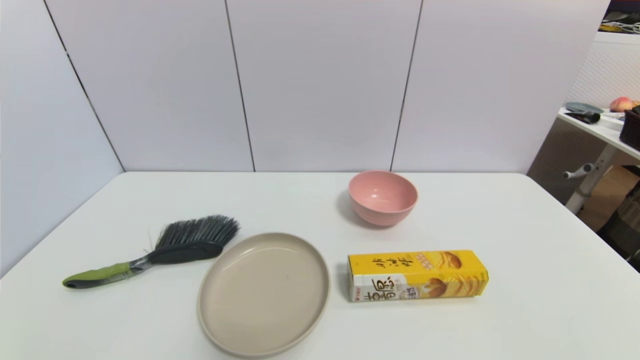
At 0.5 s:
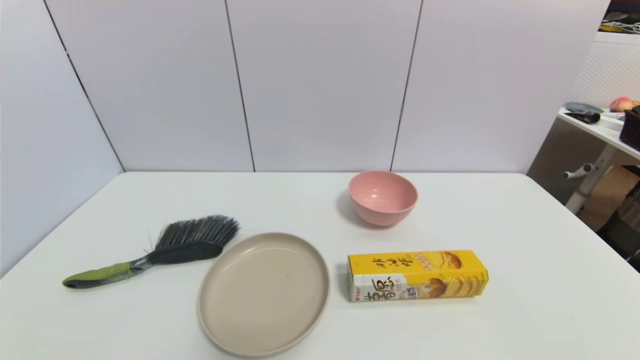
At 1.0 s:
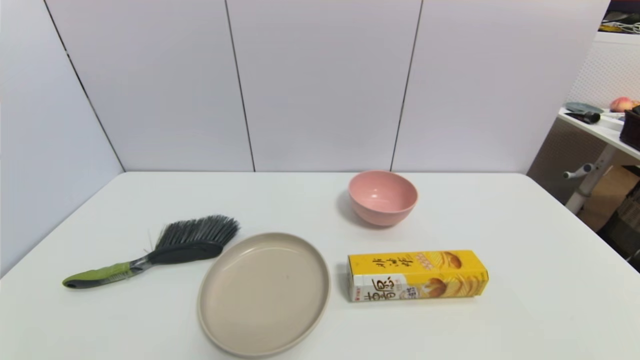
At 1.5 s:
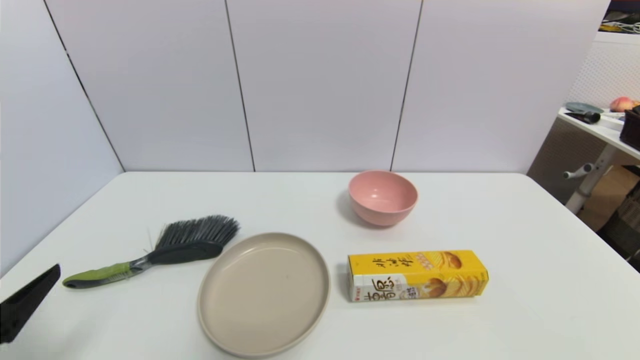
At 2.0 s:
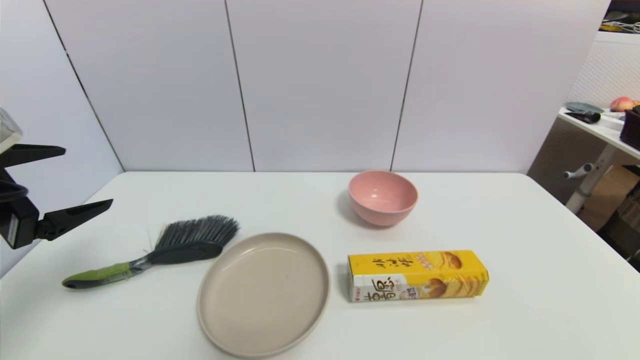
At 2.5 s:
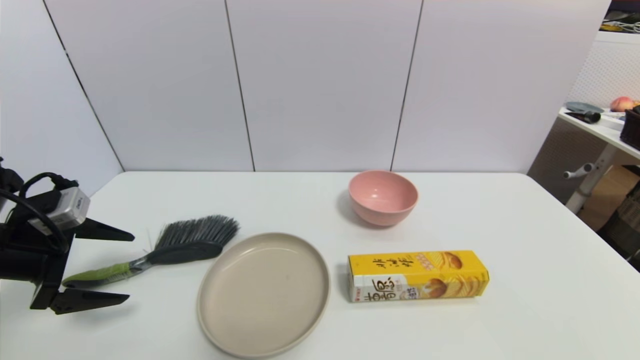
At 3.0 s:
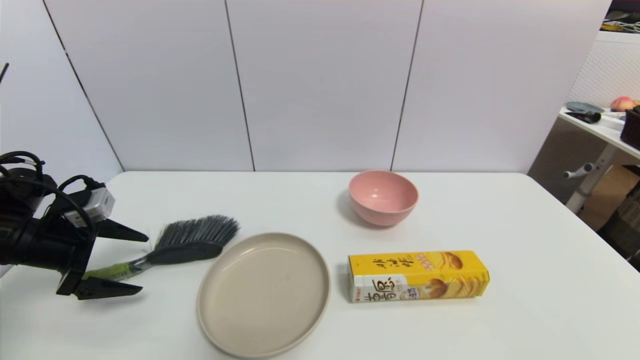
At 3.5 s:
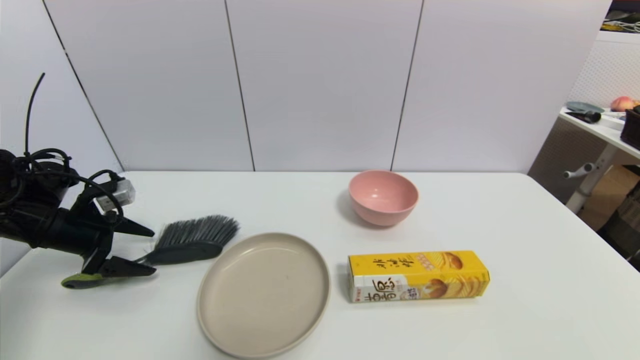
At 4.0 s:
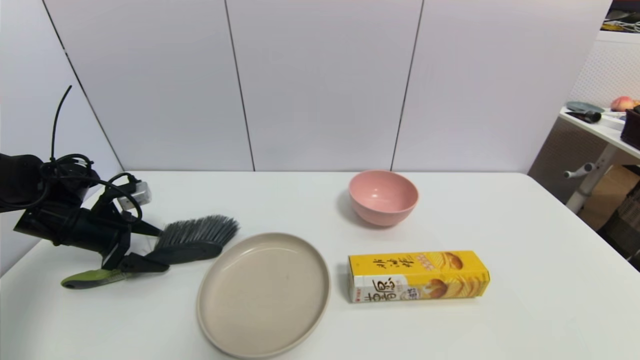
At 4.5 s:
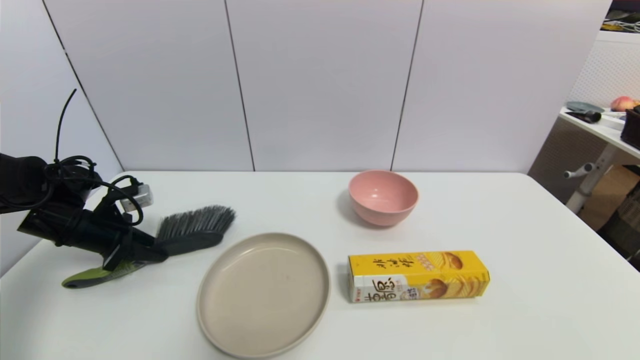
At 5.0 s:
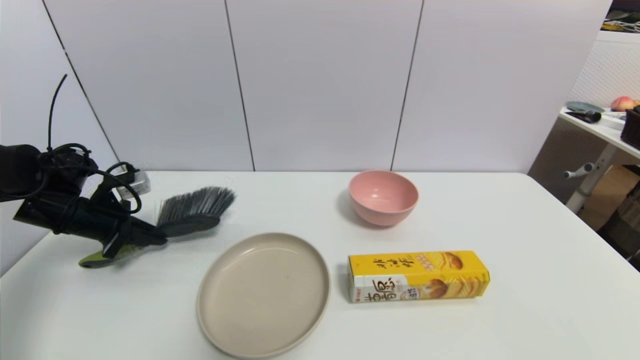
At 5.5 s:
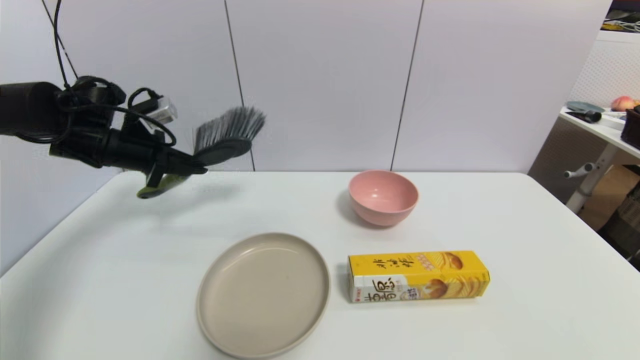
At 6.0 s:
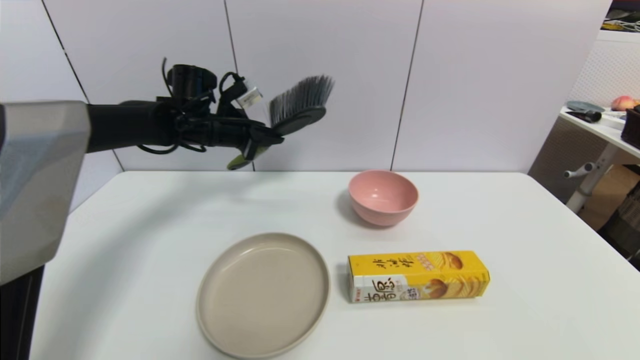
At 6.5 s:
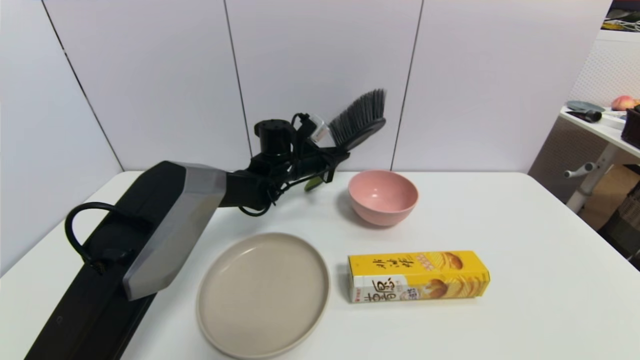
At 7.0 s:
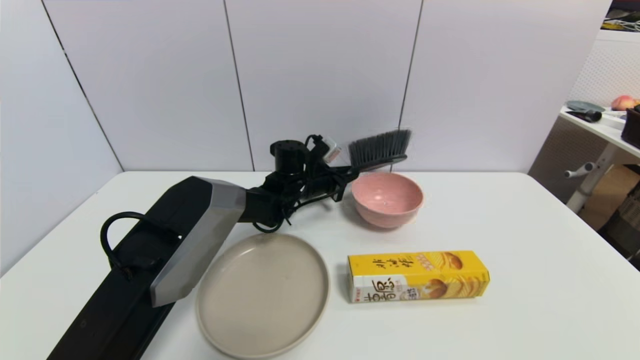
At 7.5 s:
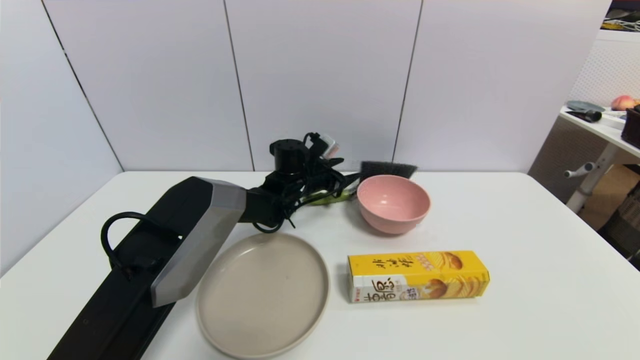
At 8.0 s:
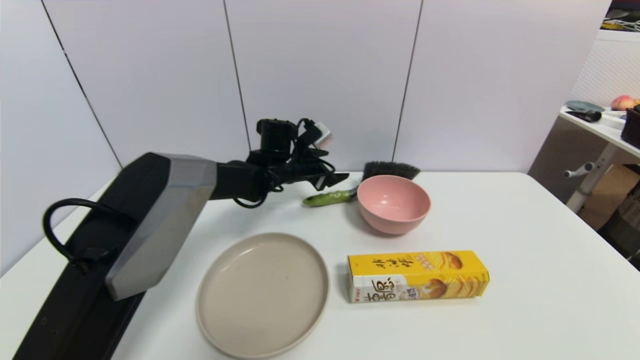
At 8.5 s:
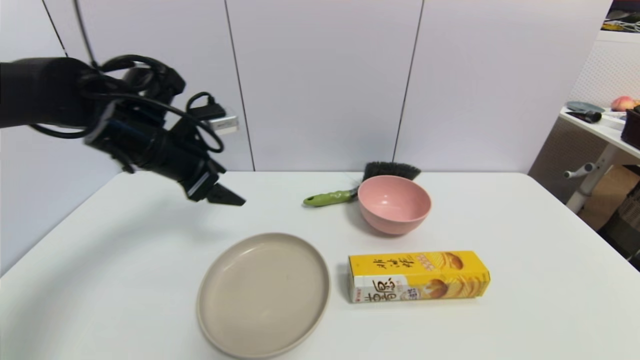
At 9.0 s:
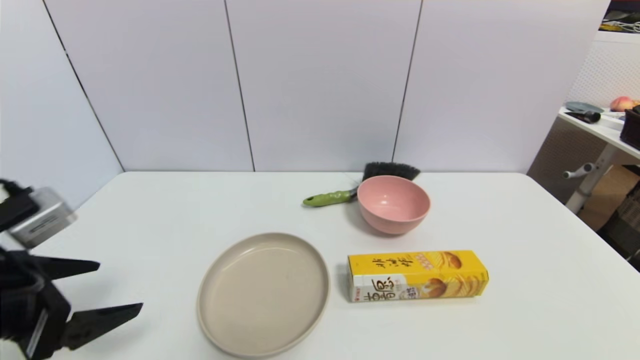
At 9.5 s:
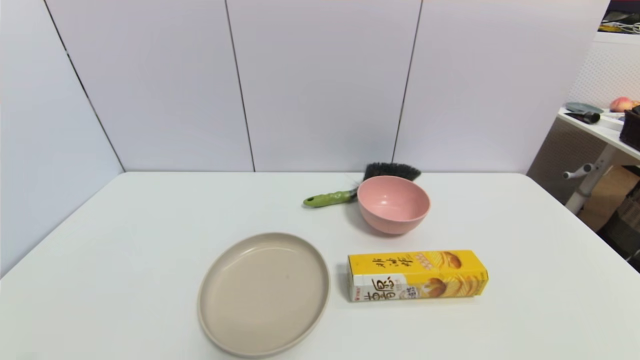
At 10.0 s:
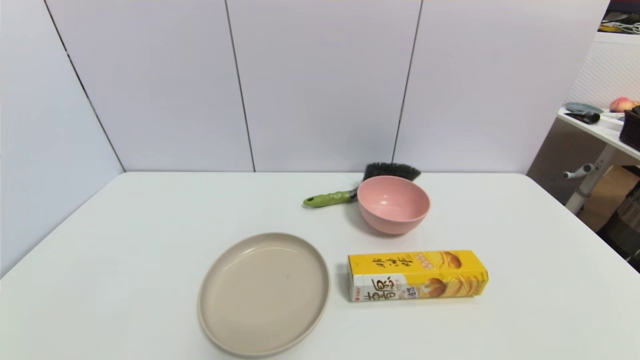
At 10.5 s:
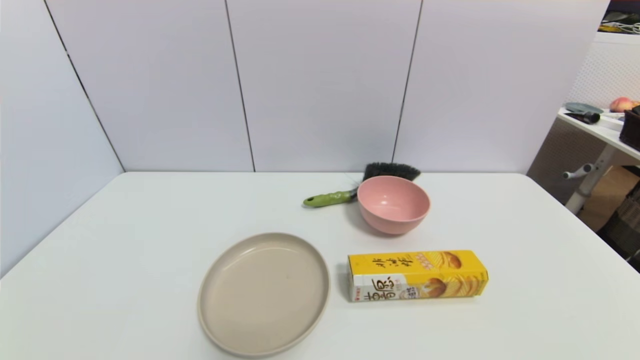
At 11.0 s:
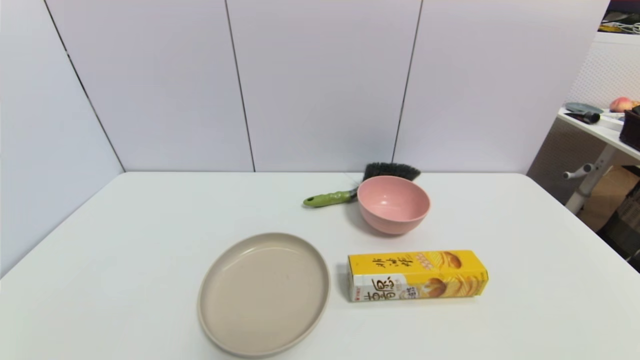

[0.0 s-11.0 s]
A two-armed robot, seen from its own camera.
Task of the whole recording: put the brush in the designated position.
Step, 1.5 to 4.5 s: Grasp the brush with left gripper.
0.0 to 2.0 s: The left gripper is displaced forward and upward by roughly 25 cm.
2.0 to 3.5 s: The left gripper goes approximately 20 cm forward and downward.
3.5 to 5.5 s: The left gripper travels upward, forward and to the right by about 15 cm, and closes up.
5.5 to 7.5 s: The left gripper shifts some 30 cm to the right and downward, and opens its fingers.
7.5 to 9.0 s: The left gripper moves backward and to the left, approximately 40 cm, and opens its fingers.
9.0 to 11.0 s: The left gripper moves backward and downward, roughly 20 cm.

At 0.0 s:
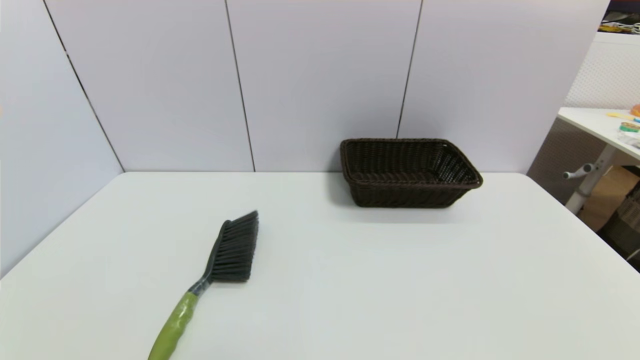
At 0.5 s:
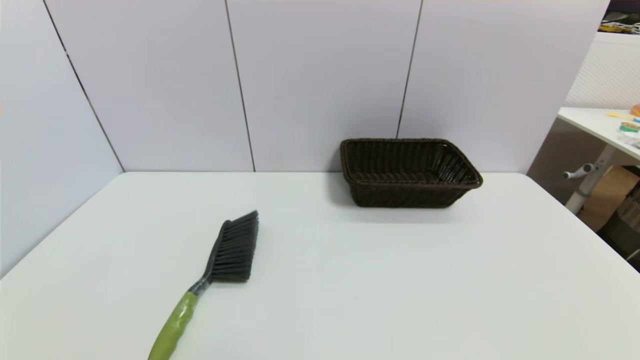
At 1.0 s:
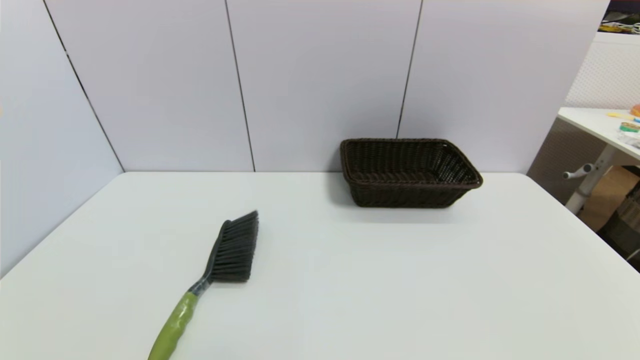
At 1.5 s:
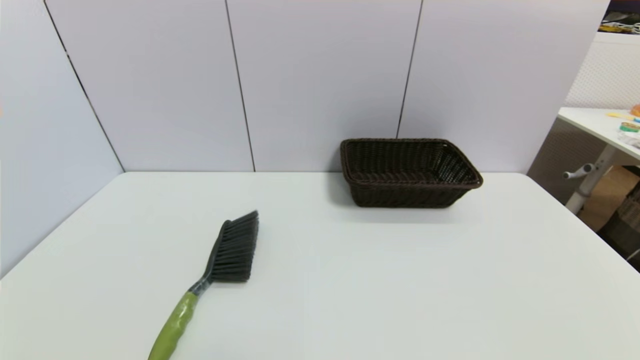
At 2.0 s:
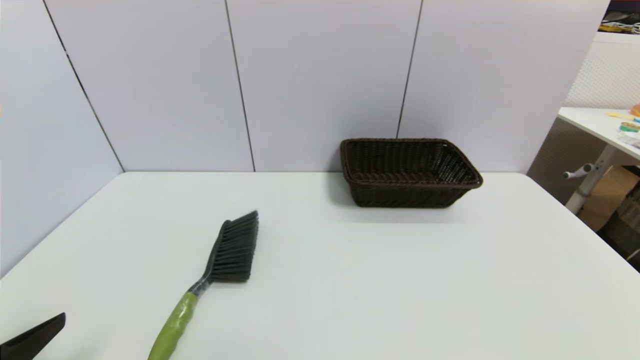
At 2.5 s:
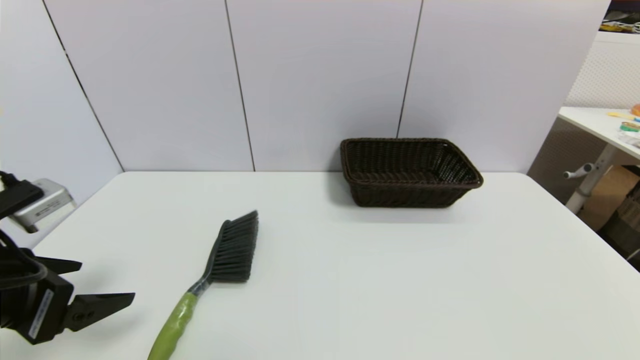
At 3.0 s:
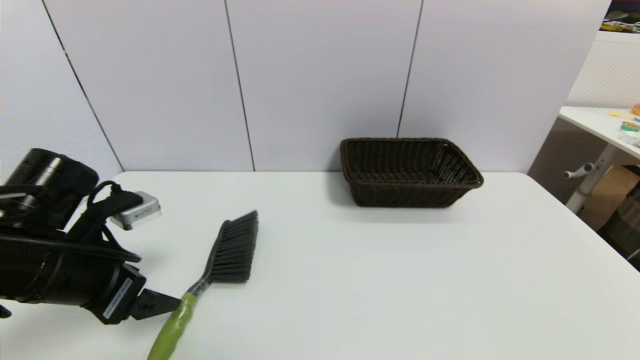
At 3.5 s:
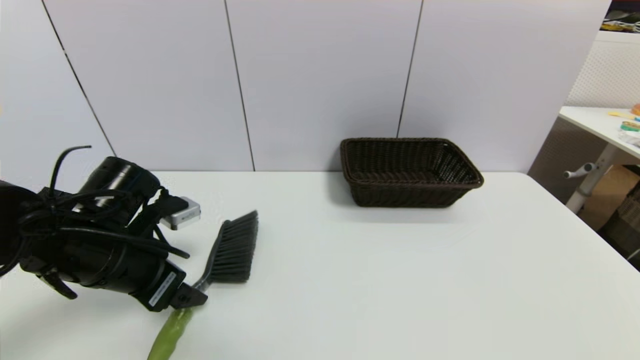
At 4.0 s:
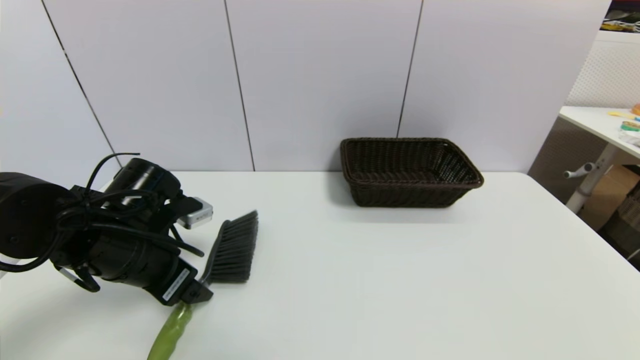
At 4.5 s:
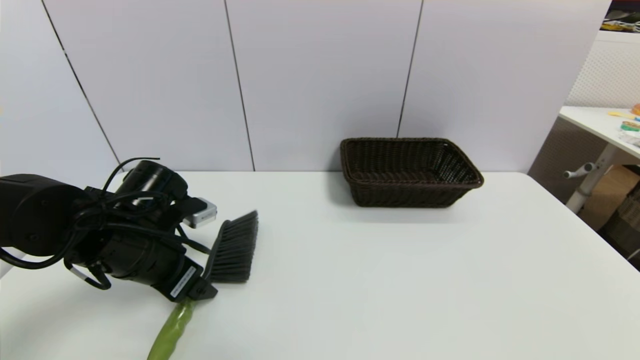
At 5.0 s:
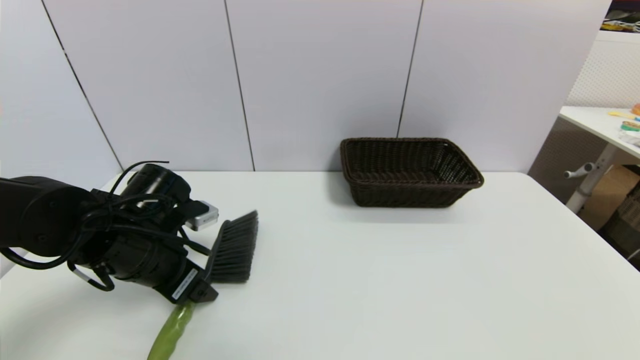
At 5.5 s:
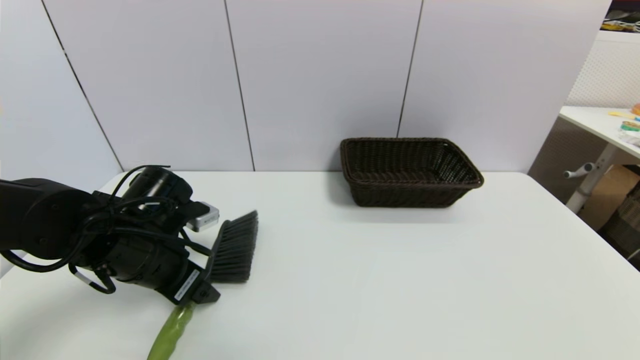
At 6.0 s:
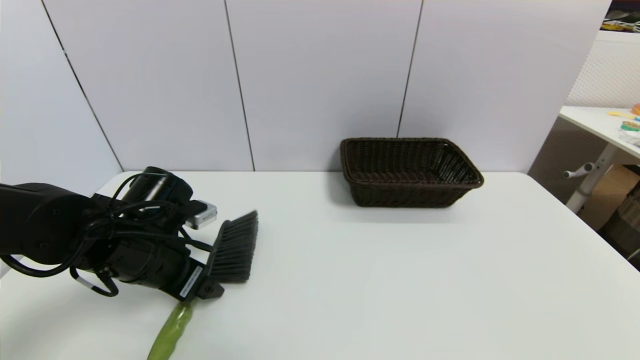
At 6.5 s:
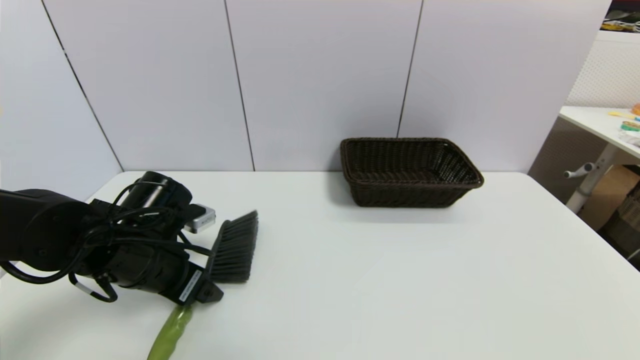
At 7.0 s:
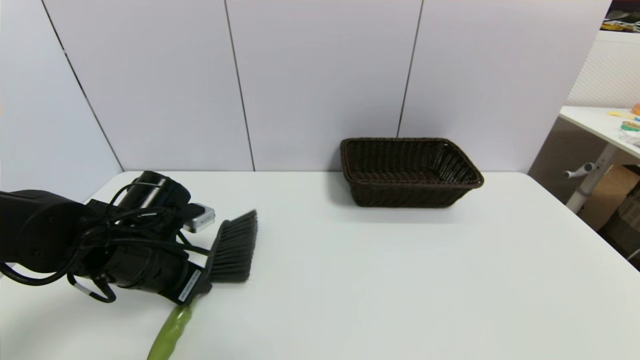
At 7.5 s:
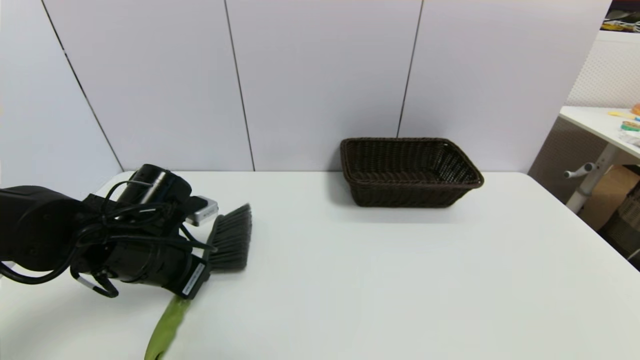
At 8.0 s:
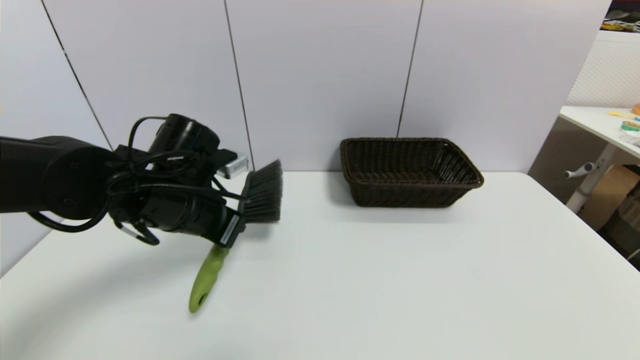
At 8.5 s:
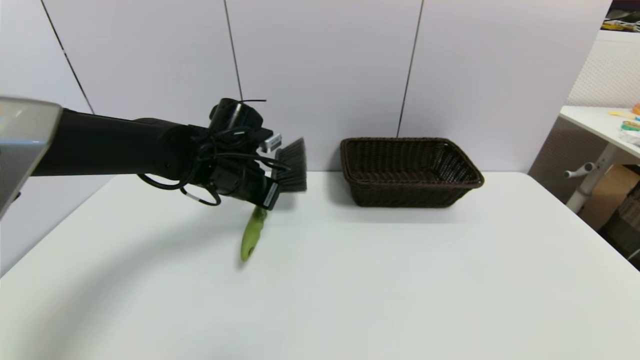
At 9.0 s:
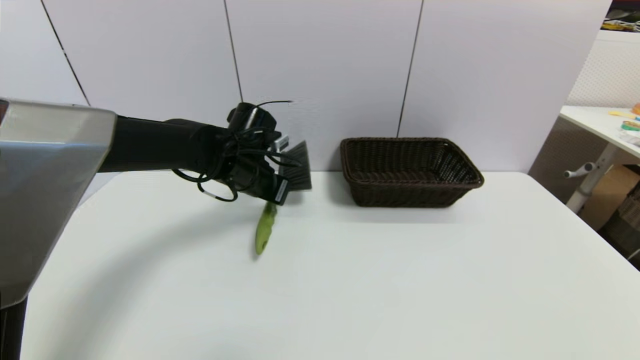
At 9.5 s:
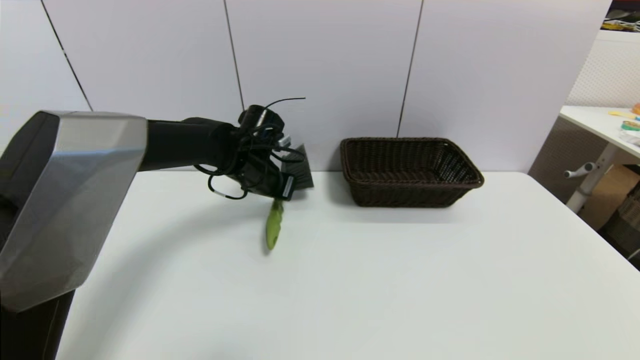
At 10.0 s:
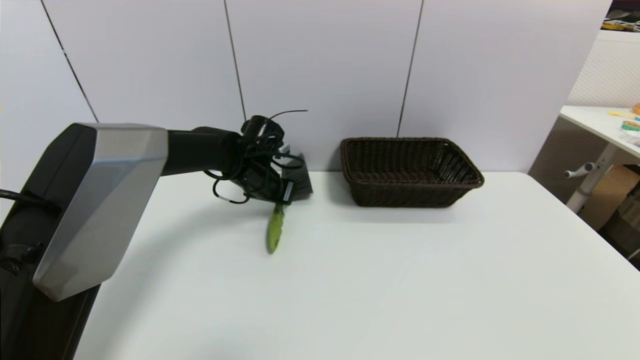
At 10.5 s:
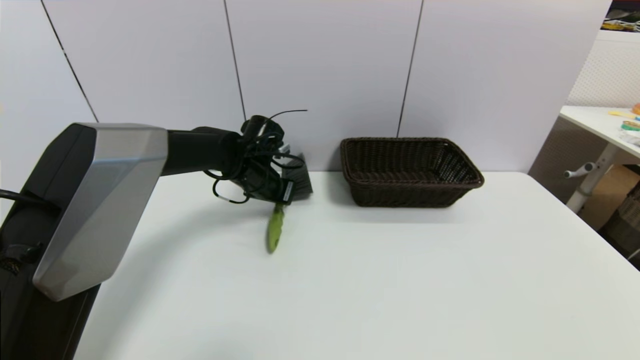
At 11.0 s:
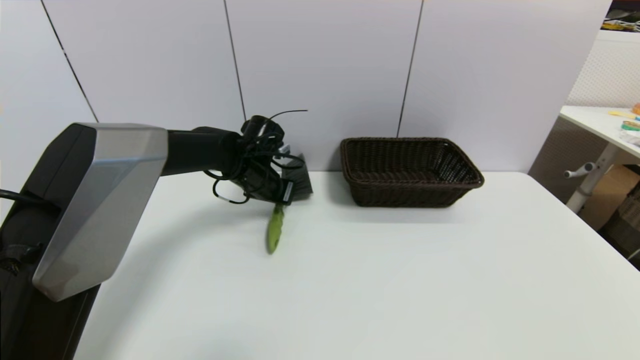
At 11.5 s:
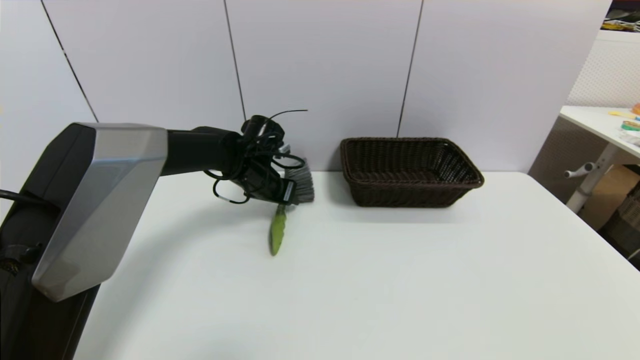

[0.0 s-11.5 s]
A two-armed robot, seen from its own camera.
Task of the whole recording: put the brush in the designated position.
Step, 2.0 to 7.0 s: Grasp the brush with left gripper.
Step, 7.5 to 11.0 s: Place the brush on the table with left gripper.
0.0 to 2.0 s: The left gripper moves upward and forward, approximately 15 cm.
2.0 to 4.0 s: The left gripper goes approximately 20 cm forward and to the right.
4.0 to 6.0 s: There are only small adjustments of the grippers.
6.0 to 7.5 s: The left gripper closes its fingers.
7.5 to 9.5 s: The left gripper shifts approximately 20 cm forward and to the right.
9.5 to 11.5 s: The left gripper opens its fingers.
